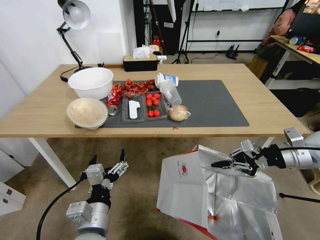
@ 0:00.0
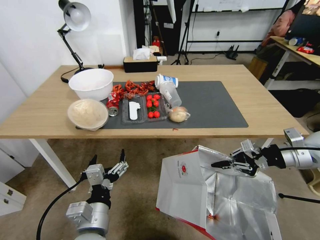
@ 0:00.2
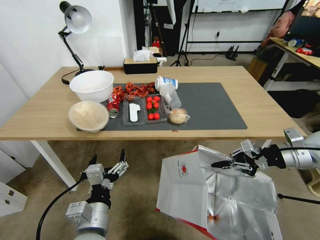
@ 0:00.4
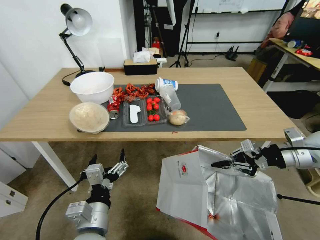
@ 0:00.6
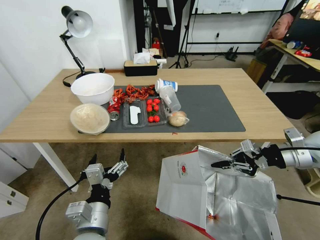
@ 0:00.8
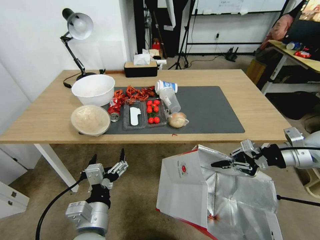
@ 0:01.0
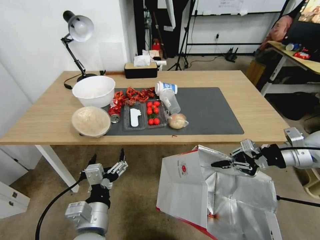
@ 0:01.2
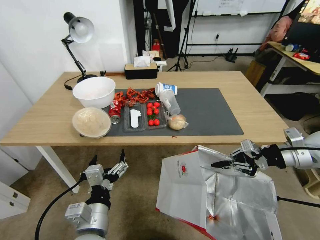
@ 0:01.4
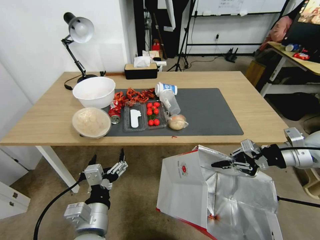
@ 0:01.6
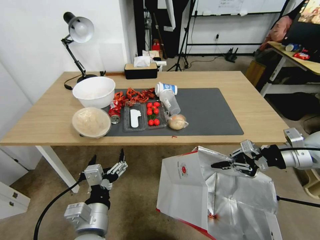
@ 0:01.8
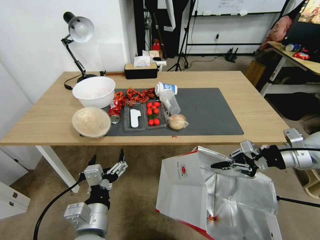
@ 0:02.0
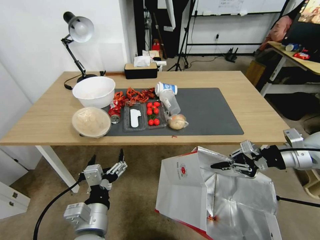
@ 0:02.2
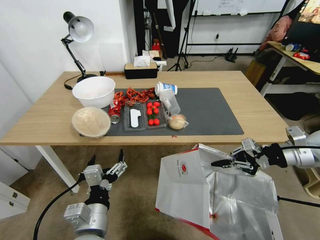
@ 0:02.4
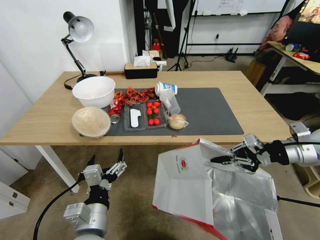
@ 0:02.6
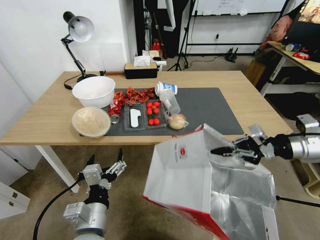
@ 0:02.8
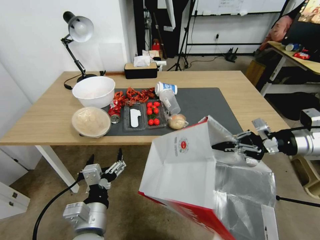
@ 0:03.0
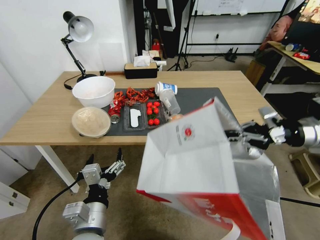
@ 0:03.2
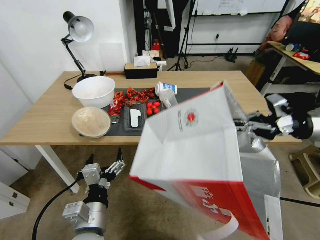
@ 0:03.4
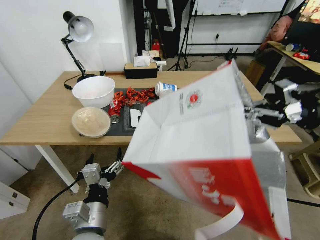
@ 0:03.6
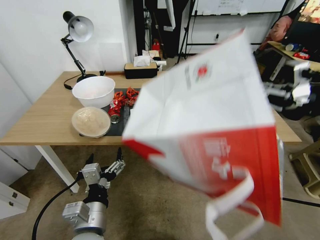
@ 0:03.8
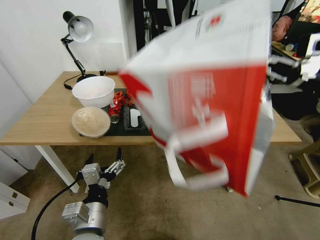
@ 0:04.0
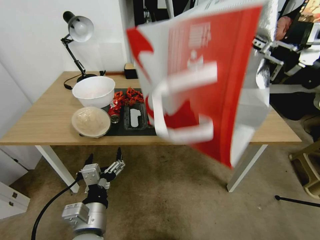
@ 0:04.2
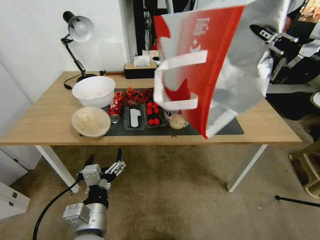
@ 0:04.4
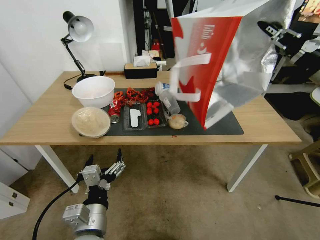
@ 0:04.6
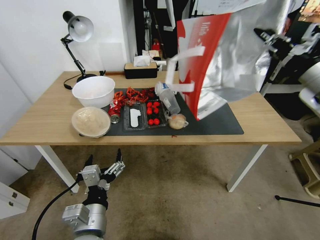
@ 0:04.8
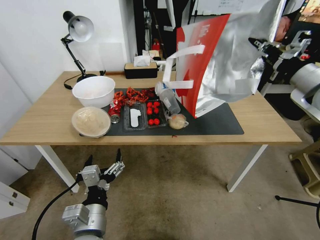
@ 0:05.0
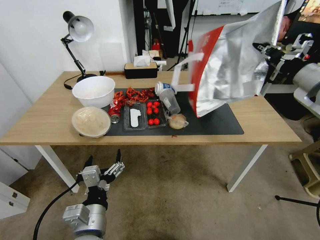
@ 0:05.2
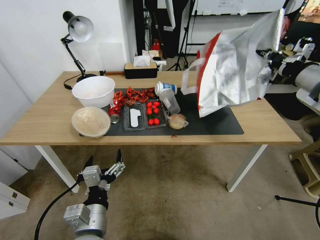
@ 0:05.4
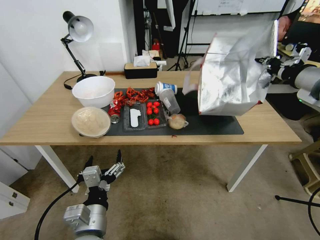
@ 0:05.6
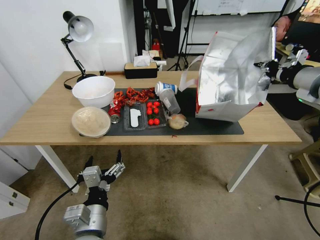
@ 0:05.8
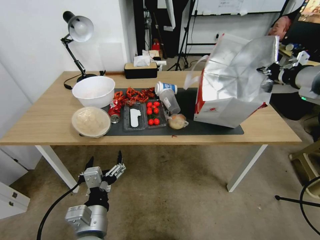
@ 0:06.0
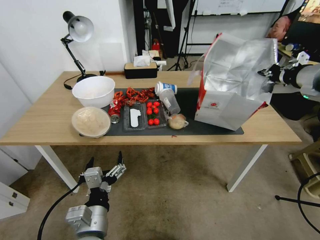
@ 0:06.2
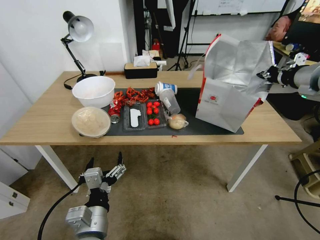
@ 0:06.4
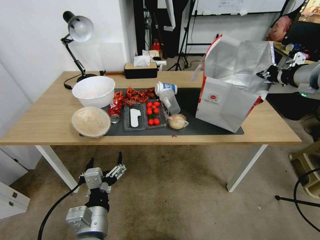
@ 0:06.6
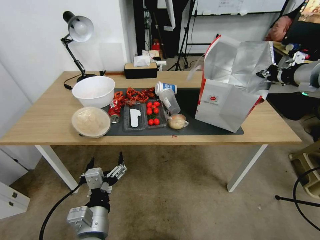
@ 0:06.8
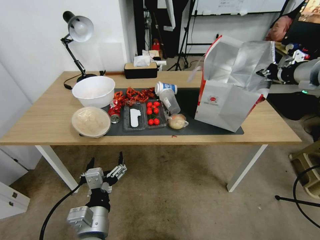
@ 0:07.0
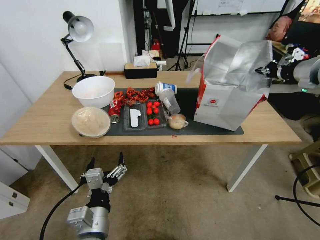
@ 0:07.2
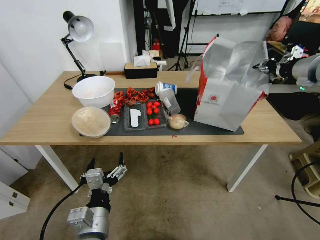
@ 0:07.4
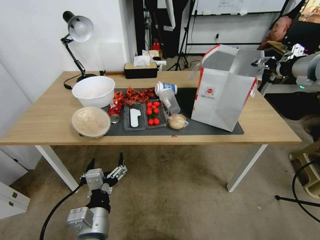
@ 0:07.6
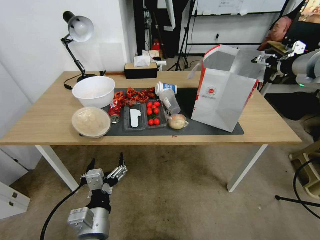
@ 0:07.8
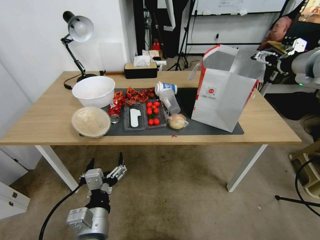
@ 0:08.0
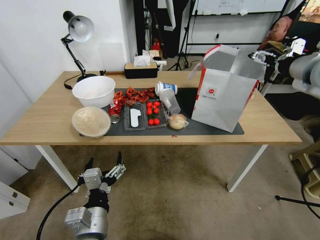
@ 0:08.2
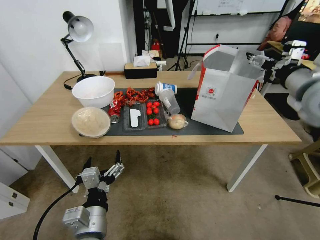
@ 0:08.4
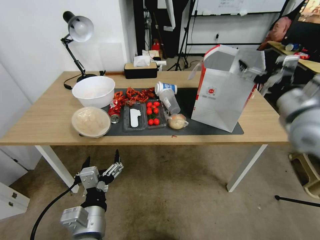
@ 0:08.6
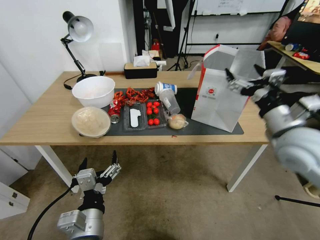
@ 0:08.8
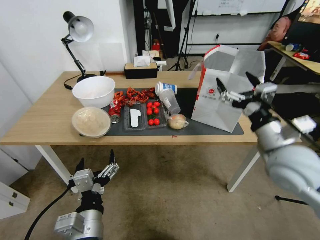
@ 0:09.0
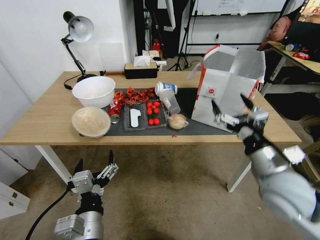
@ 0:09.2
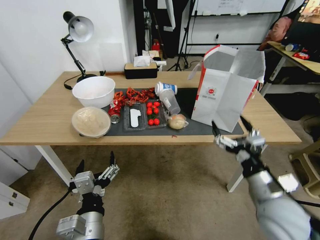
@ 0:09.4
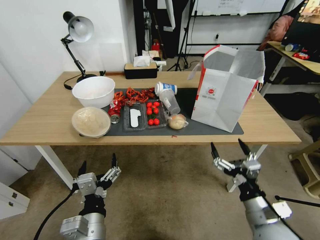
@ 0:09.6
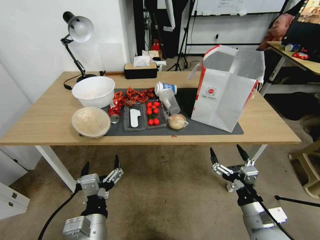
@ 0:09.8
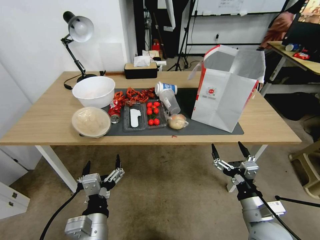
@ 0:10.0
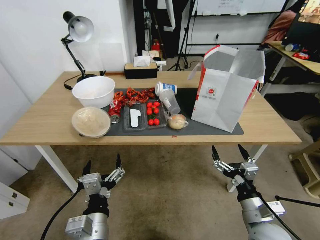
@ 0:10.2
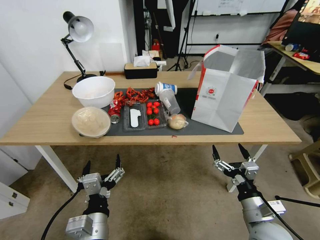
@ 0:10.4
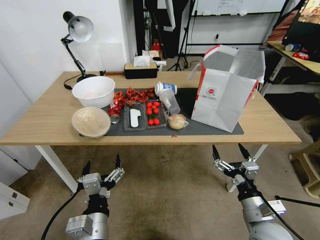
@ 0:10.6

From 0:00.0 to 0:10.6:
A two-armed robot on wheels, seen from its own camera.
Task of the whole recording: Pick up the food delivery bag from the floor and place it on the table.
From 0:01.6 to 0:03.0: The grippers move only a little.
From 0:03.0 to 0:04.6: The right gripper goes roughly 10 cm upward.
From 0:06.0 to 0:07.6: The right gripper opens its fingers.
From 0:07.6 to 0:09.0: The right gripper heads downward, backward and to the left, covering about 25 cm, and opens its fingers.
From 0:09.0 to 0:10.6: The right gripper is displaced downward and backward by some 20 cm.

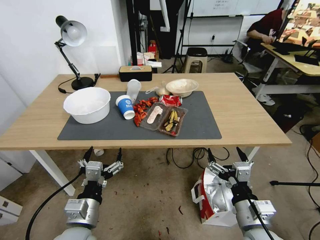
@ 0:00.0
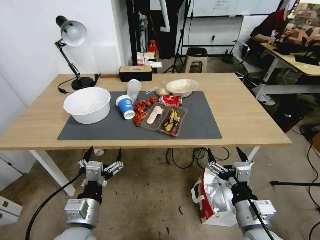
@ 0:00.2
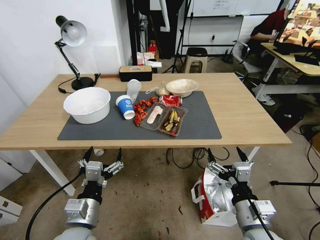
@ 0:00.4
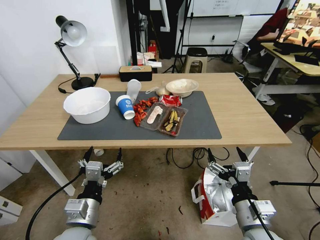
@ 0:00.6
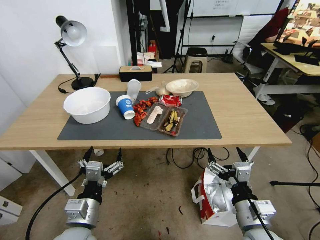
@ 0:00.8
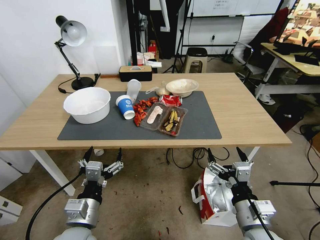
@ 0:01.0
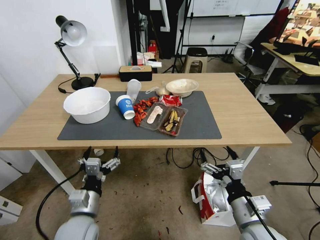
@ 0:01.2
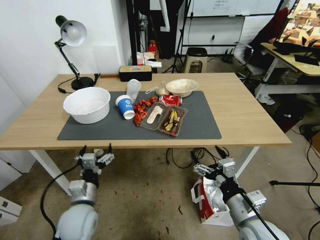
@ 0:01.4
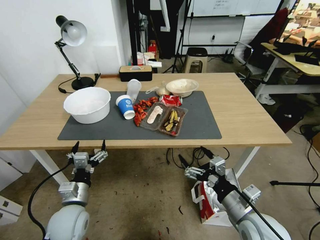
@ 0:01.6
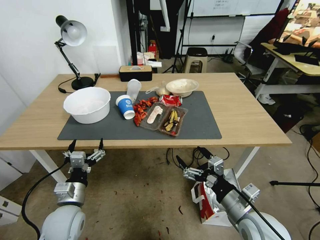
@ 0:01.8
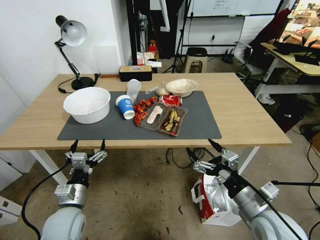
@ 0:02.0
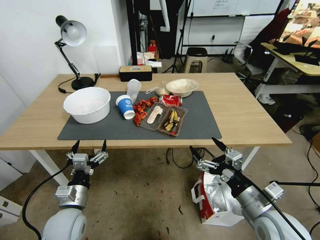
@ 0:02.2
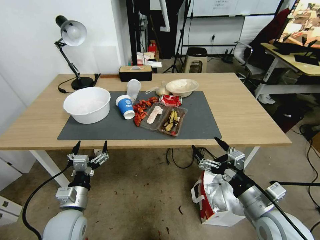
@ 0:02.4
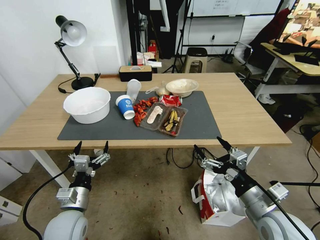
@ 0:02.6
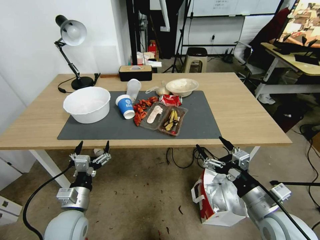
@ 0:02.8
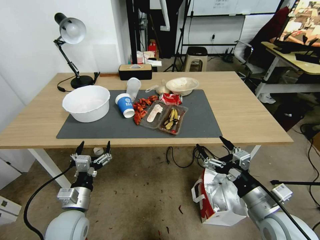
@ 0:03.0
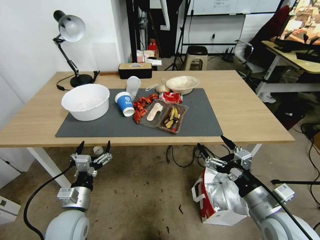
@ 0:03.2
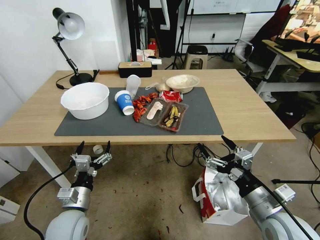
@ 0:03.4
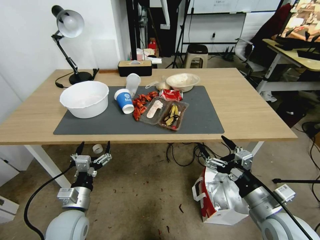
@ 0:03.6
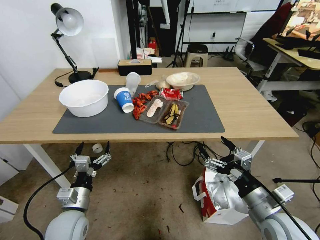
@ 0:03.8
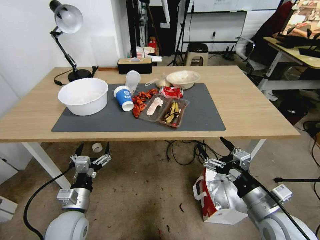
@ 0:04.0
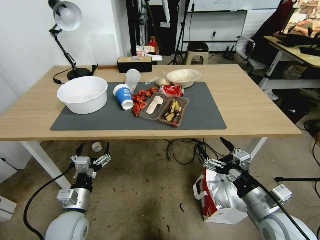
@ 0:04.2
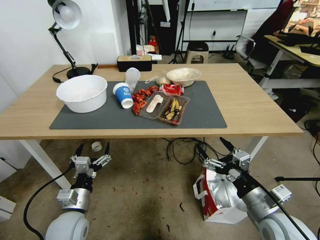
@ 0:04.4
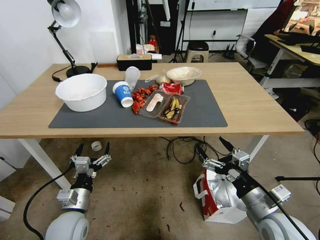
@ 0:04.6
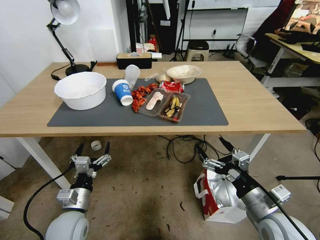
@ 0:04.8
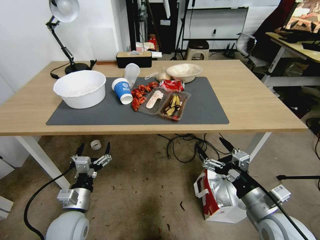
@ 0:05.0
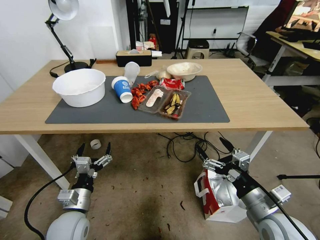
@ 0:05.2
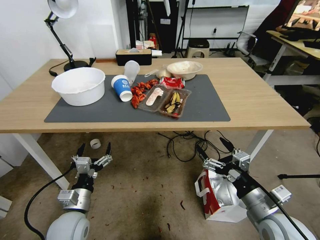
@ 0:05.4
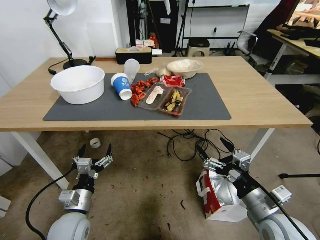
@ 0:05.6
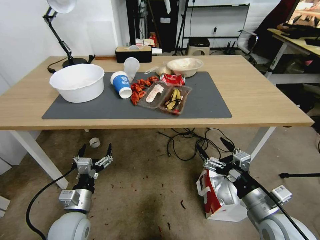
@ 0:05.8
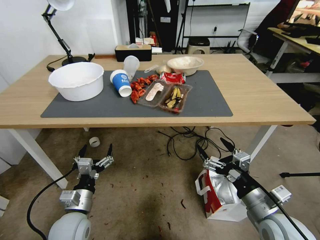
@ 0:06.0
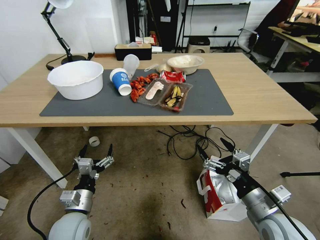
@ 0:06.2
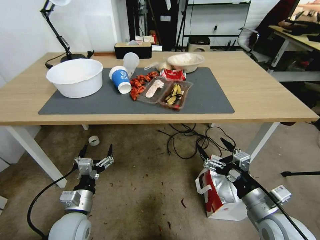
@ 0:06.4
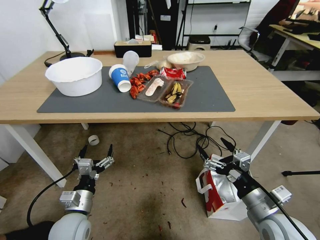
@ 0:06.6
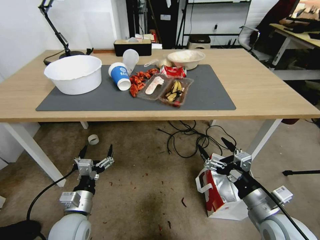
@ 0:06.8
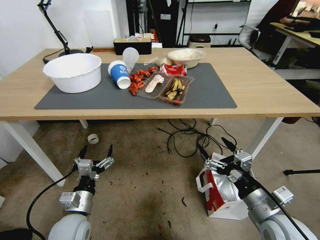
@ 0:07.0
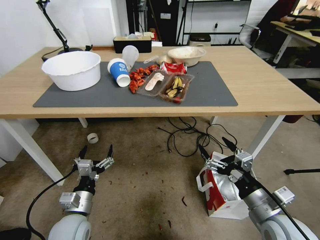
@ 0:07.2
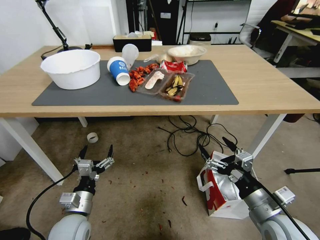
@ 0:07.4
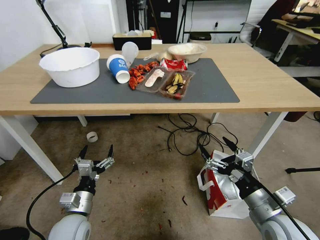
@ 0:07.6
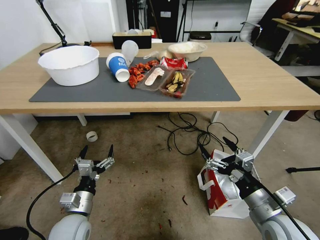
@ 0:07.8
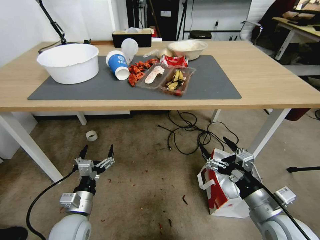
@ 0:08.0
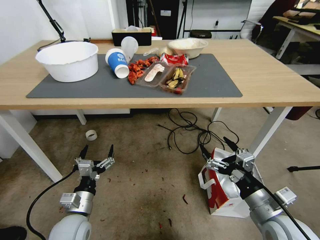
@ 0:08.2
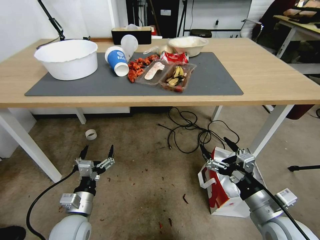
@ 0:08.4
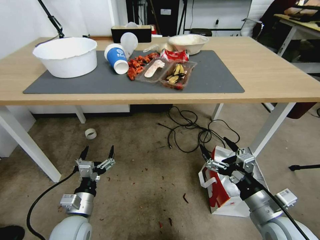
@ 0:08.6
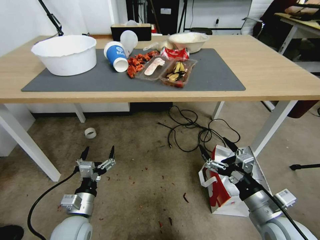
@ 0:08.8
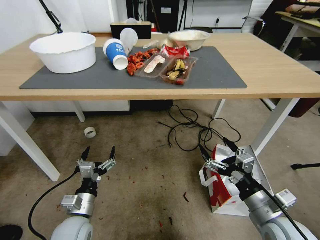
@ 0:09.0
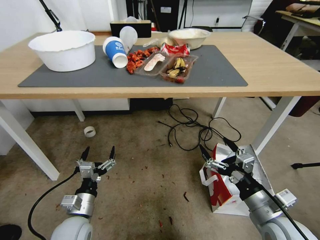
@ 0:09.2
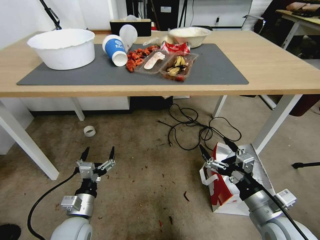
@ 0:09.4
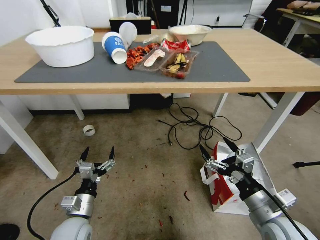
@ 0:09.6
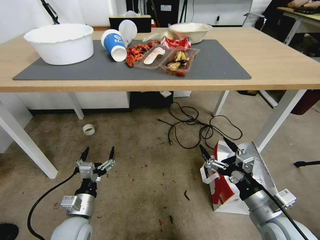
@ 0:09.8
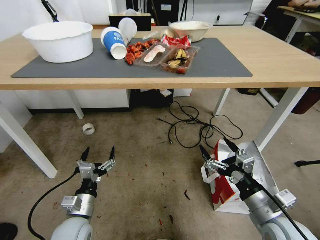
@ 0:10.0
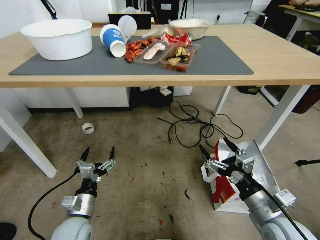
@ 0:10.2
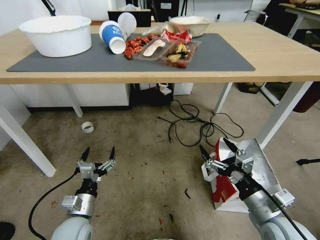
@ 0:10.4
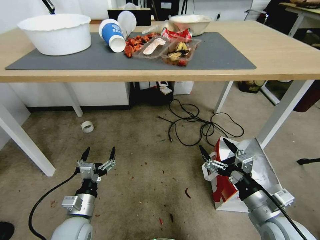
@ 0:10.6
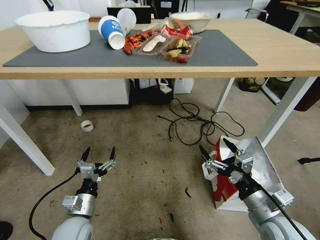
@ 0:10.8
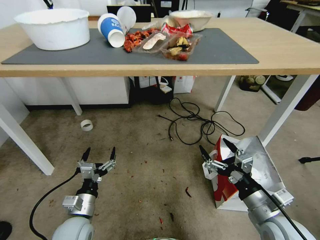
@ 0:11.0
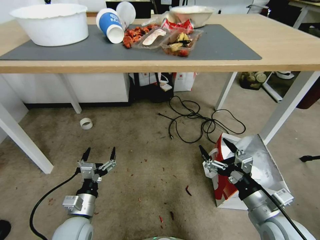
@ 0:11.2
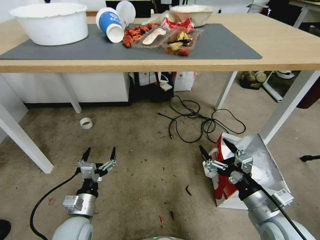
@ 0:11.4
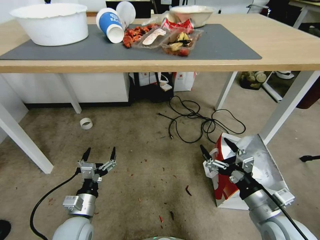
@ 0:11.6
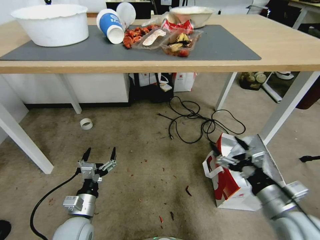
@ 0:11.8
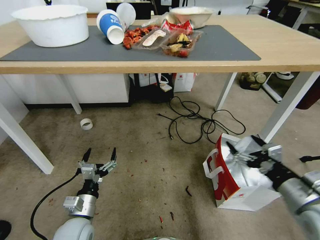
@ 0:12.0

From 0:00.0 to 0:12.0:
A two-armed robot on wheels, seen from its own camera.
Task of the whole recording: Pick up the food delivery bag from the floor and place it on the table.
From 0:01.6 to 0:03.0: The grippers move only a little.
From 0:10.4 to 0:12.0: The right gripper moves to the right, roughly 5 cm.
